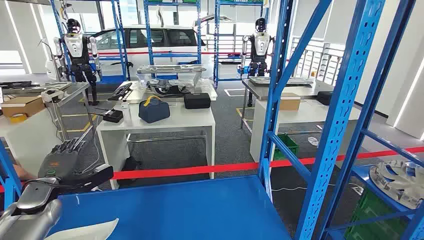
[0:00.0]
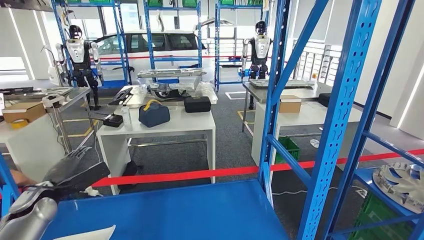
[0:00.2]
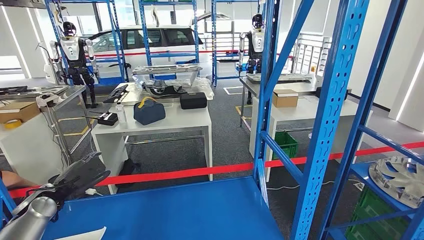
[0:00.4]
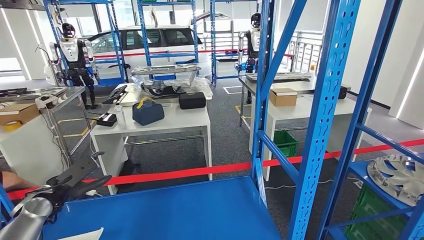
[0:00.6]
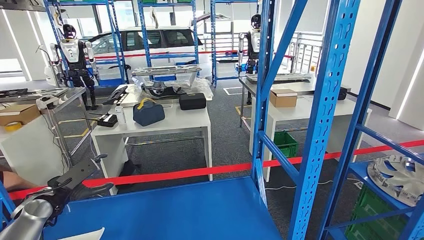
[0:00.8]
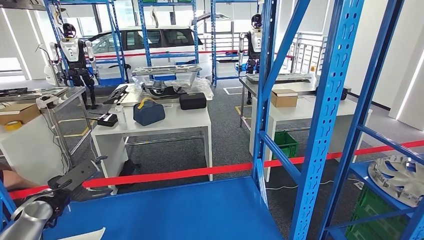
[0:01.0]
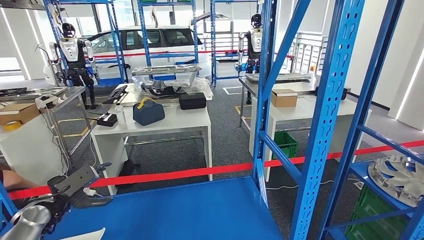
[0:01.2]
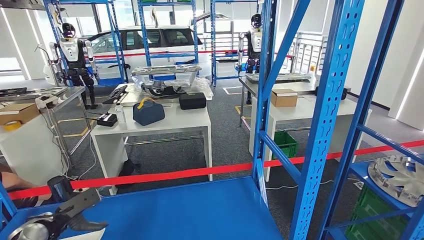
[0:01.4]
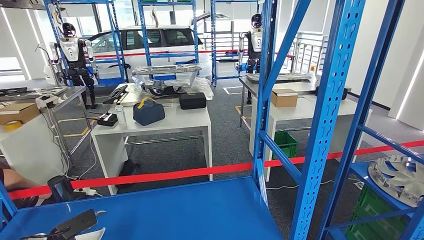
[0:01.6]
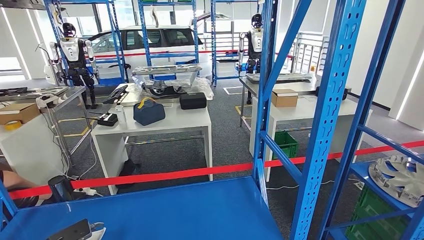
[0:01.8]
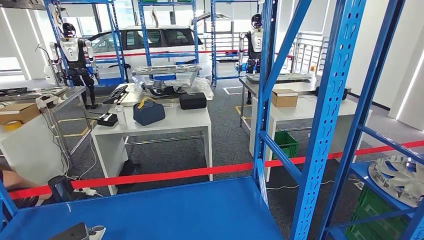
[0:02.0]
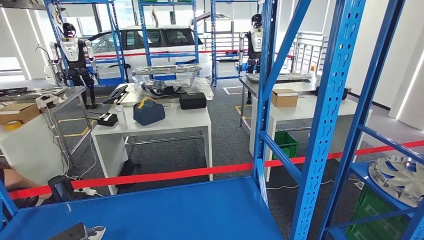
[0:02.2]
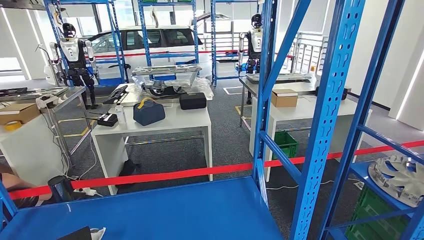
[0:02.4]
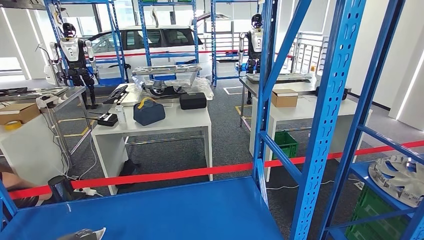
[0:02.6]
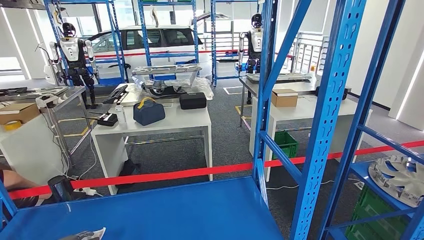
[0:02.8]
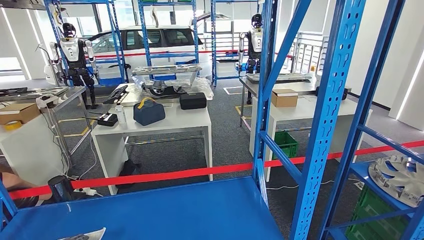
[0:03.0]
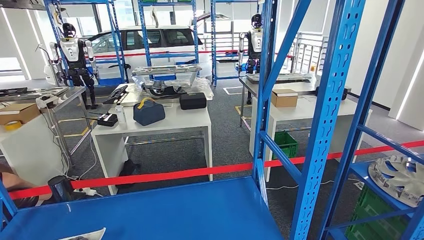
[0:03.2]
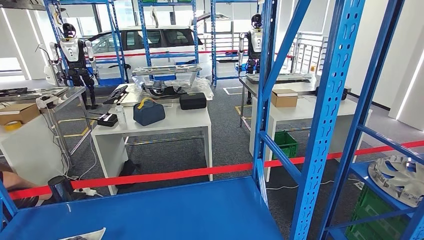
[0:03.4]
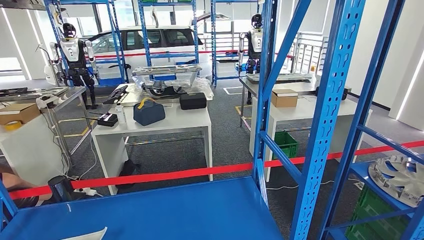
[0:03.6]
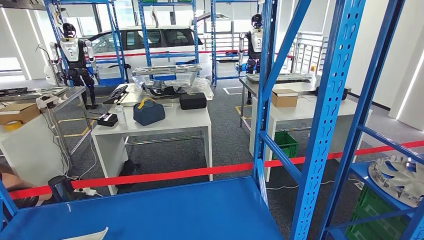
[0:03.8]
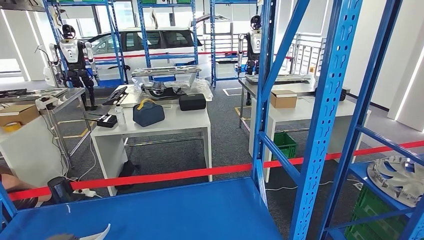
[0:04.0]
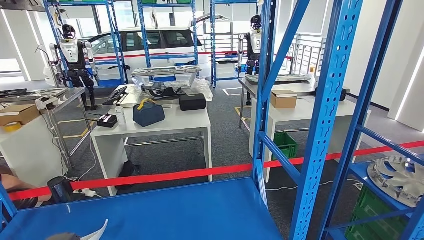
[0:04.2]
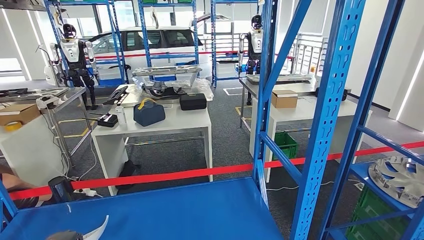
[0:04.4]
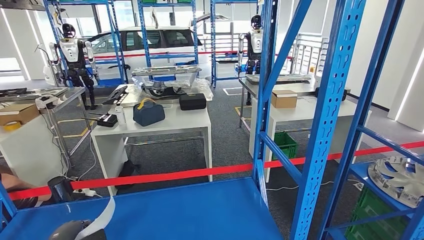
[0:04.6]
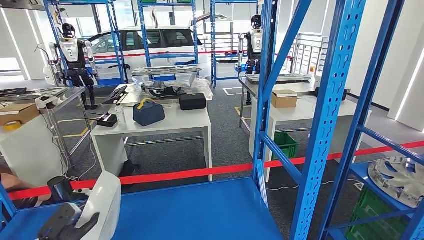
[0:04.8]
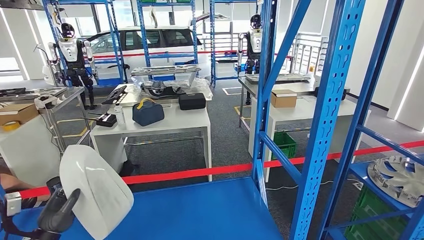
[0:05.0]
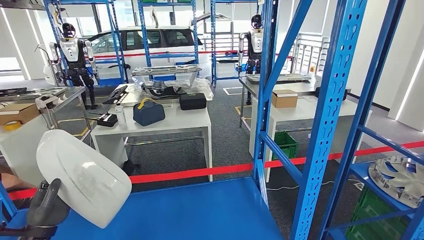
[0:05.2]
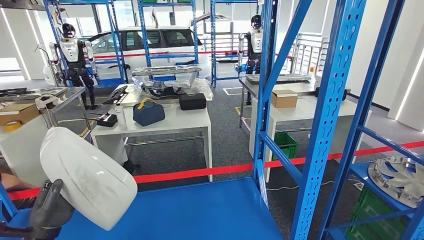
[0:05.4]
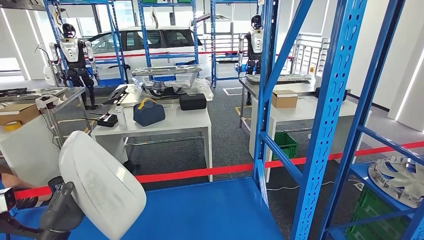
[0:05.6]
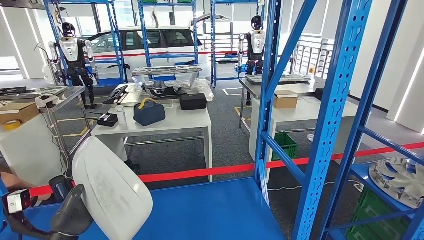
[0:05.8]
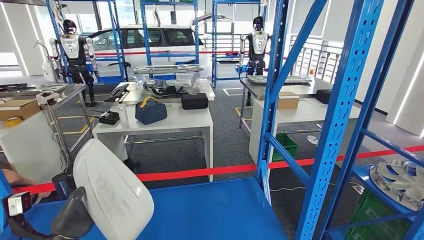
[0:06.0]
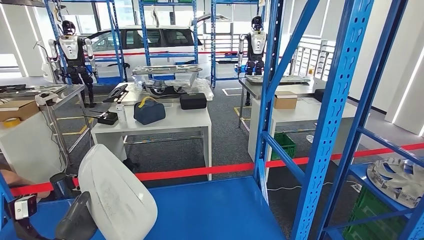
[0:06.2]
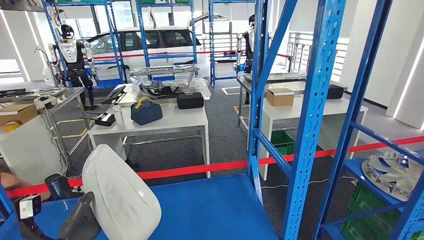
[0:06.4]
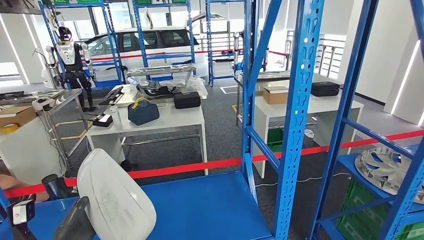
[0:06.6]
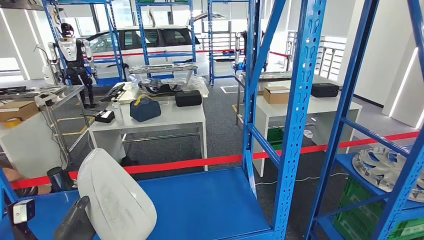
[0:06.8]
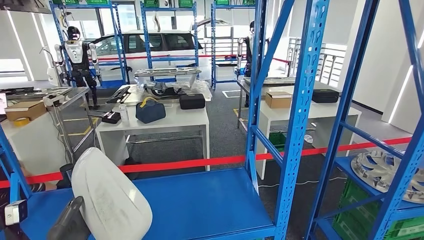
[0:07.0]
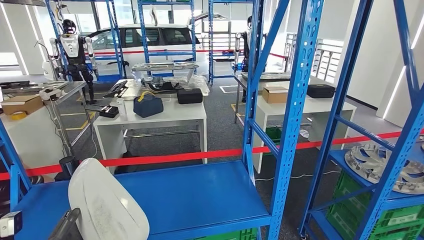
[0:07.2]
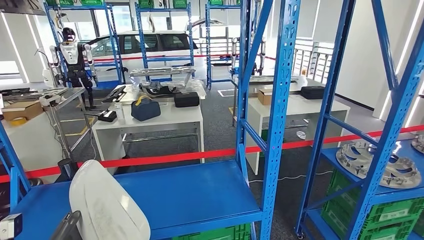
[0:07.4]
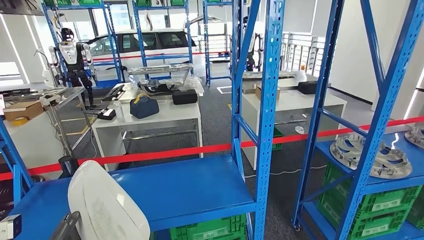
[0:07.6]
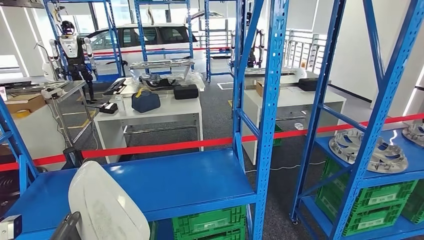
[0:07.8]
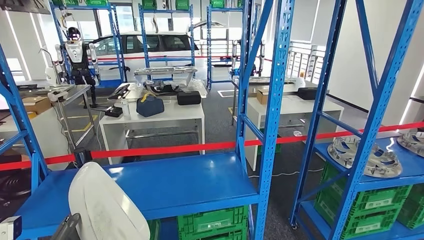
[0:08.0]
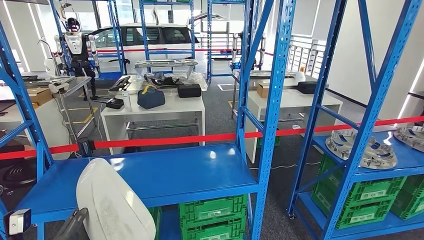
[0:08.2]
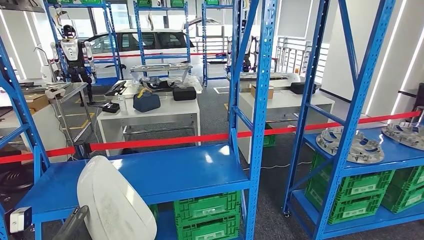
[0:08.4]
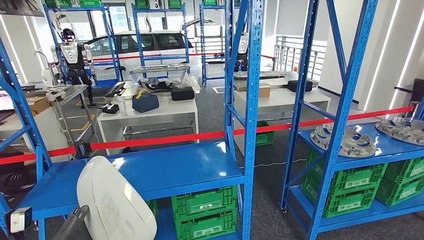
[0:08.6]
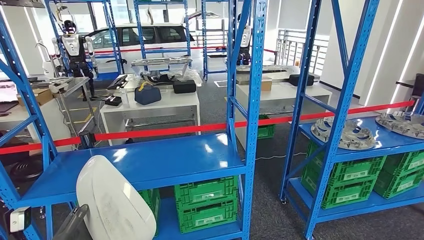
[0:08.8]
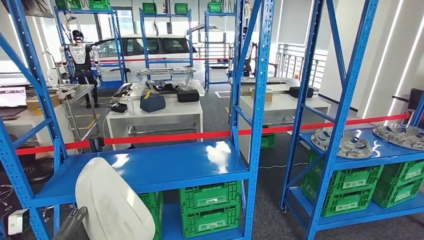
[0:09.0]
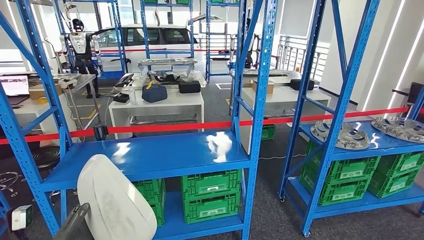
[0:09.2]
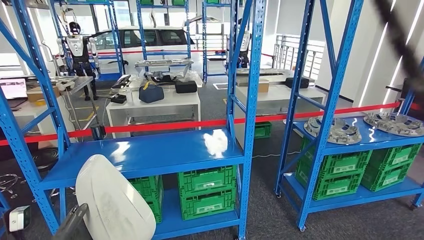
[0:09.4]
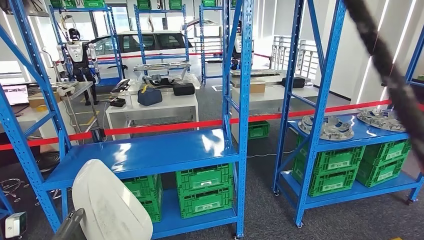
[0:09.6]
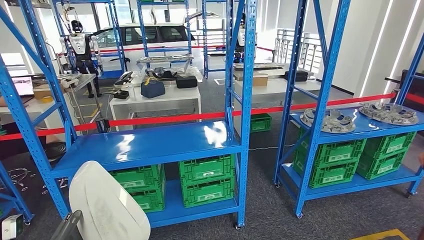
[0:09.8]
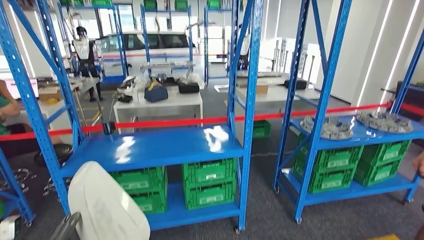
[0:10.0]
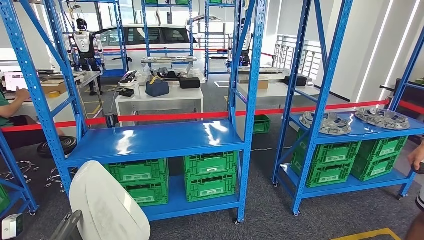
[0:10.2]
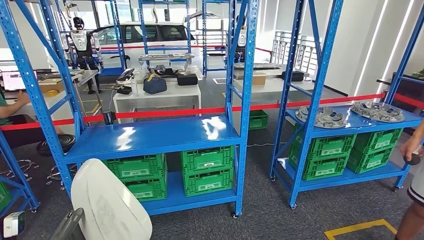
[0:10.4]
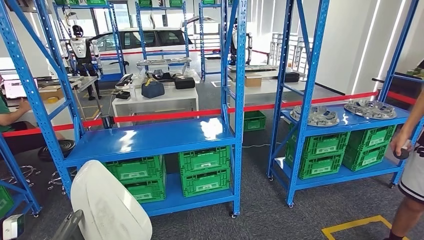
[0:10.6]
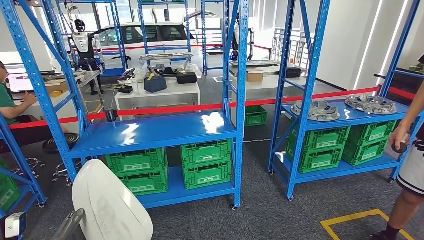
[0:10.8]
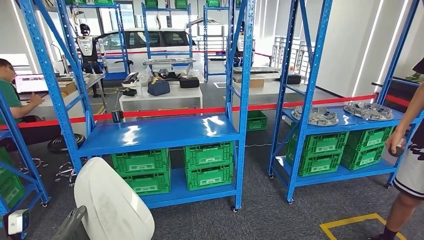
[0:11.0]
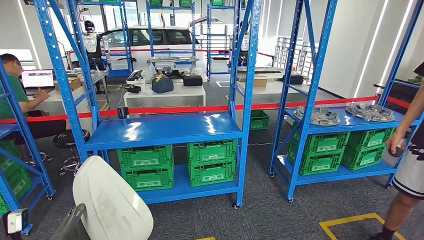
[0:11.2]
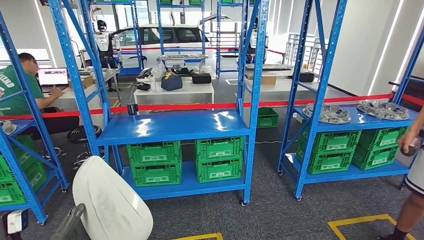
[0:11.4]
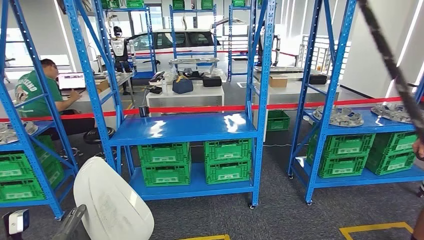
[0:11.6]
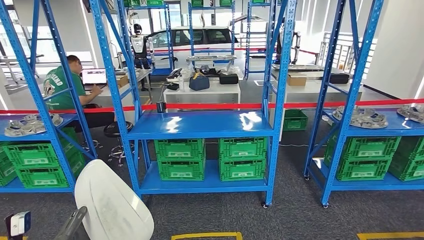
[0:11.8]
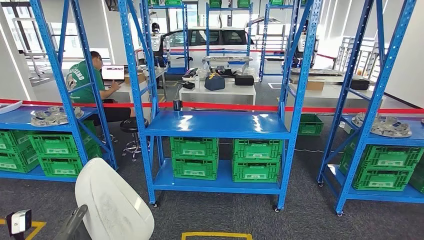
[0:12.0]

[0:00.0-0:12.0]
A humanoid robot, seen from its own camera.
Step, 0:00.0 to 0:05.4: Pick up the small component from the shelf.
0:03.0 to 0:04.4: The hands move only a little.

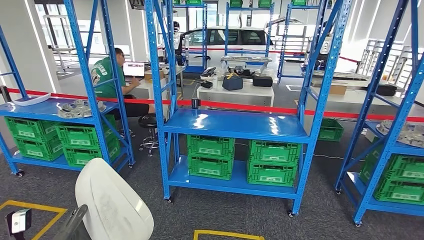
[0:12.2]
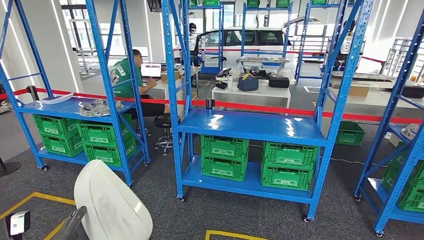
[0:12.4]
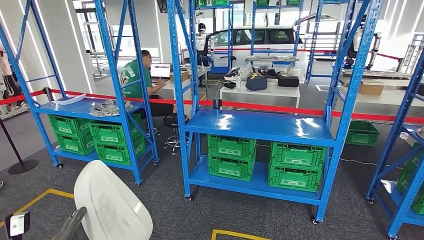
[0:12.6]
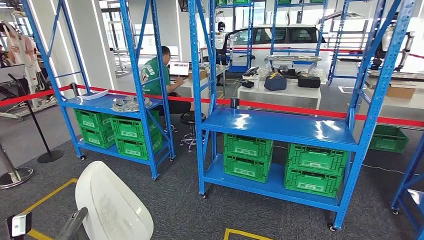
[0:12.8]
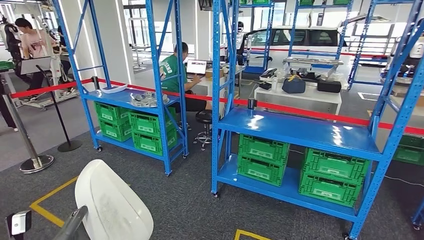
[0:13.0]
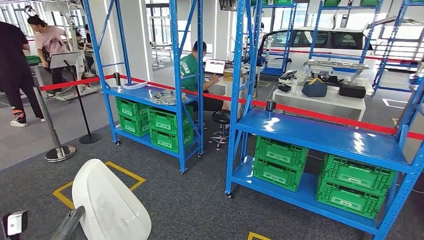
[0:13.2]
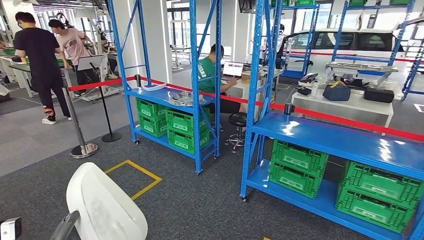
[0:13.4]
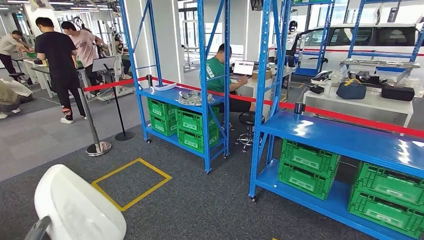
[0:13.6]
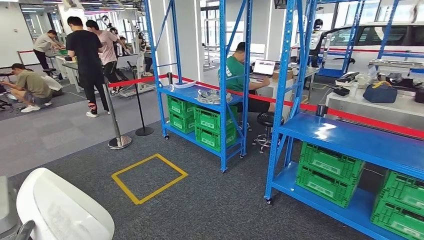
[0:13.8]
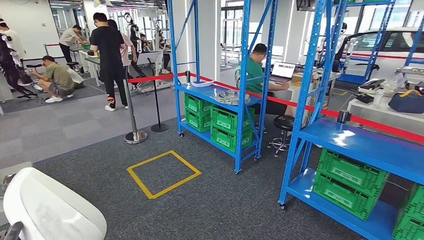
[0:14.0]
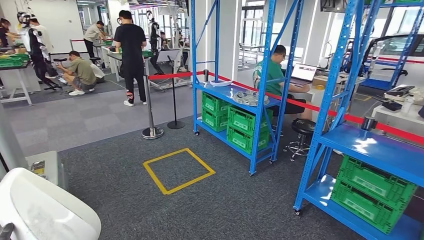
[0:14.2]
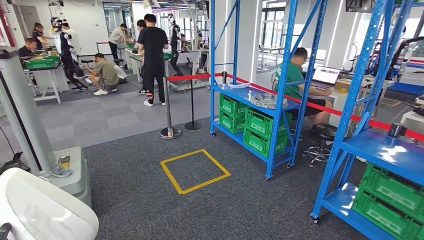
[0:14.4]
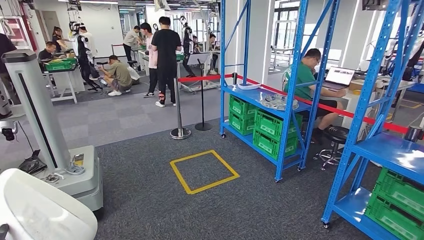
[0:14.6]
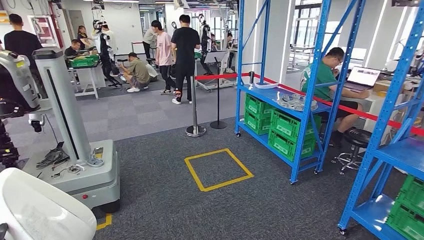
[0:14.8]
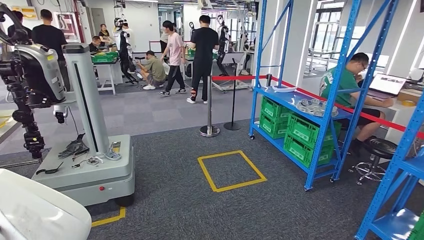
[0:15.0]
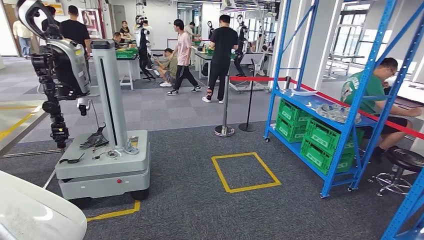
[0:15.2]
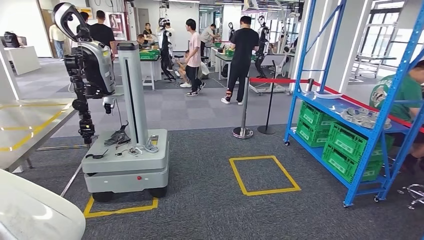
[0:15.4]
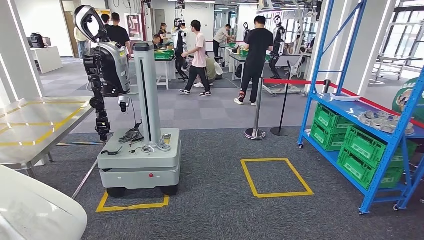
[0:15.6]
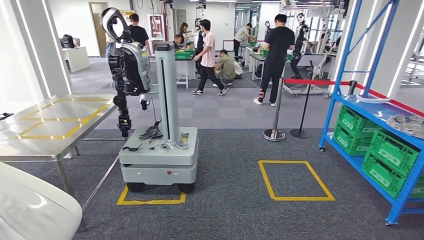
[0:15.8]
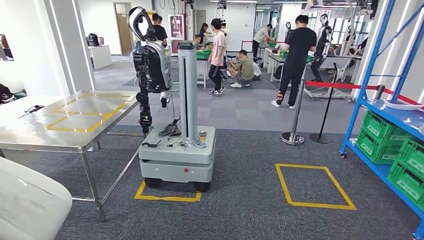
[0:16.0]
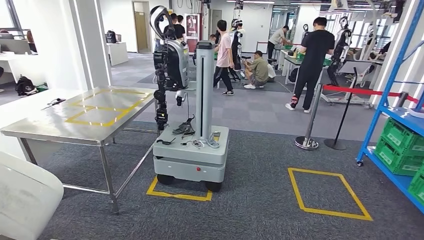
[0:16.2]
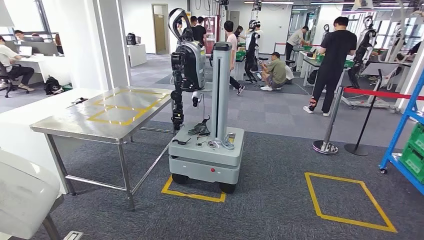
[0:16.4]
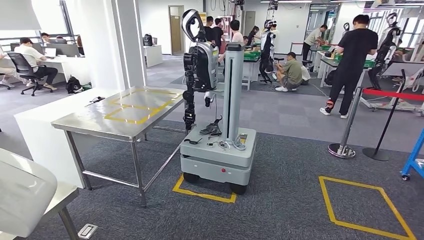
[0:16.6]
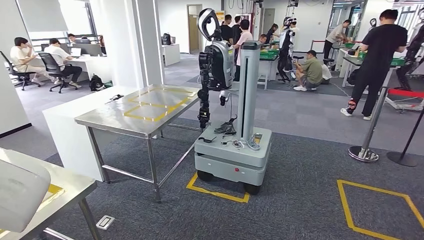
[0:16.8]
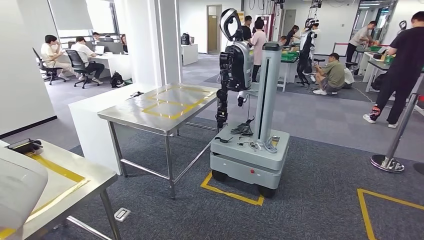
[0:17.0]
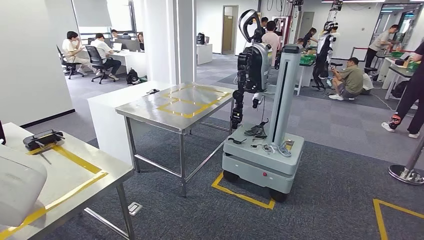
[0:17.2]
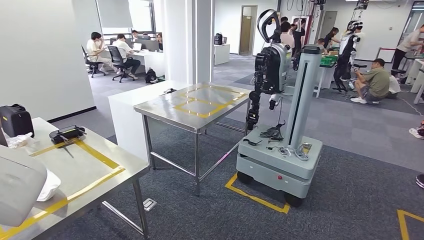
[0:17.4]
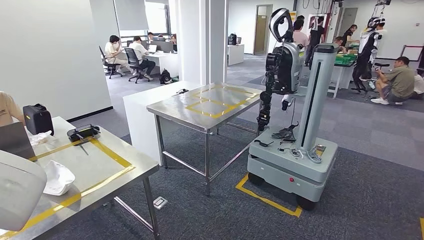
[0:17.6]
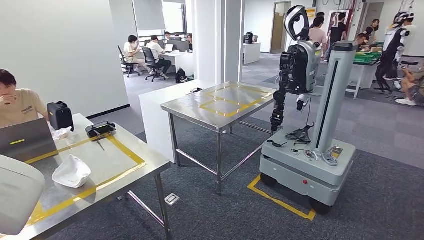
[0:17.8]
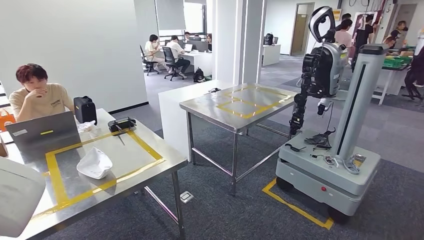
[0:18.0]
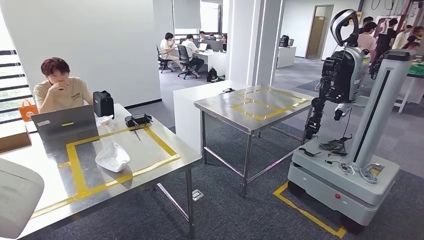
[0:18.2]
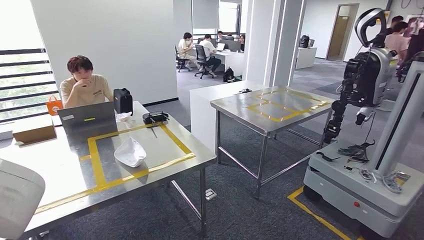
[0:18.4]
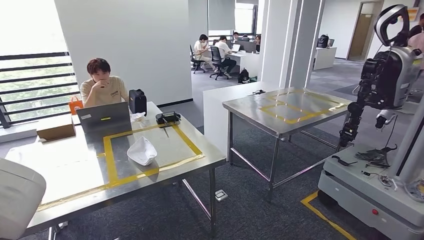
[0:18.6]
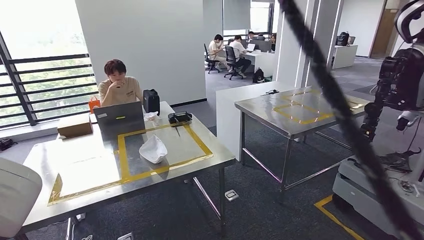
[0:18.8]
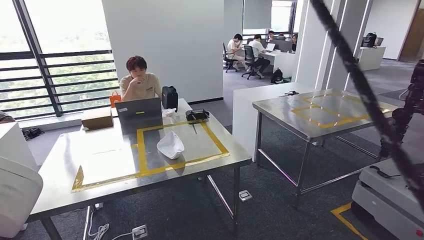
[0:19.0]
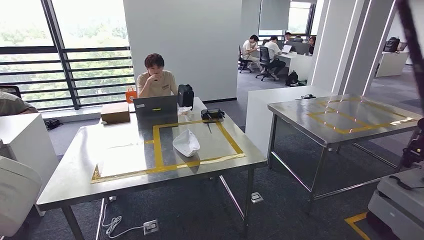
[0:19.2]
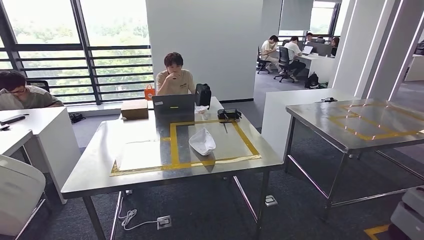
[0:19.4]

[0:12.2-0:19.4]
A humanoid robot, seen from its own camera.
Step, 0:12.2 to 0:18.6: Move the small component to the workbench.
